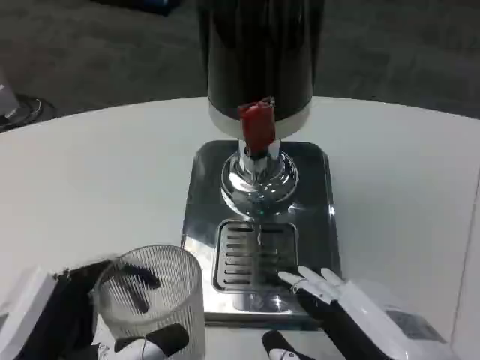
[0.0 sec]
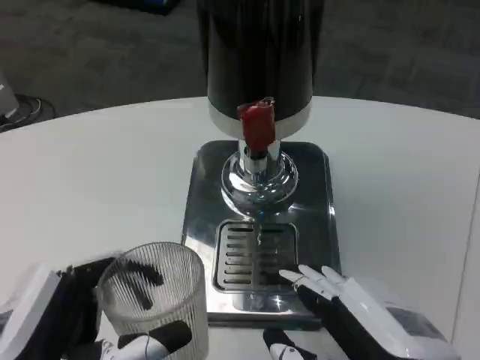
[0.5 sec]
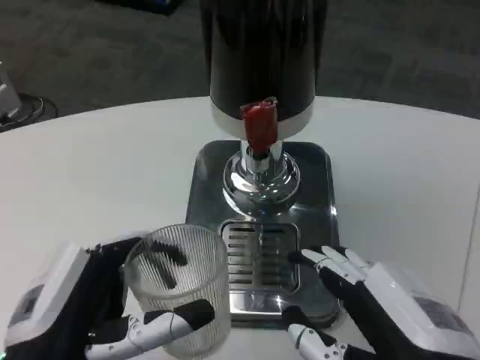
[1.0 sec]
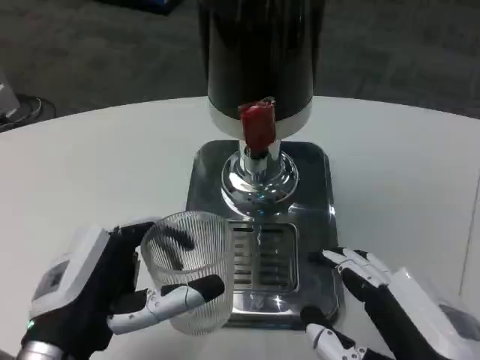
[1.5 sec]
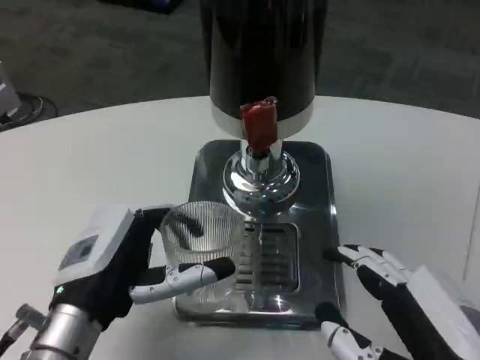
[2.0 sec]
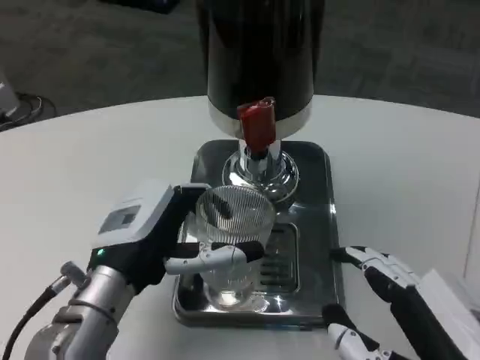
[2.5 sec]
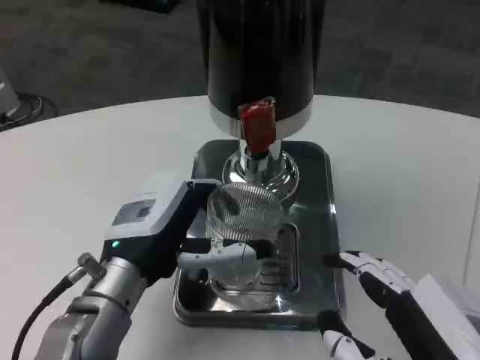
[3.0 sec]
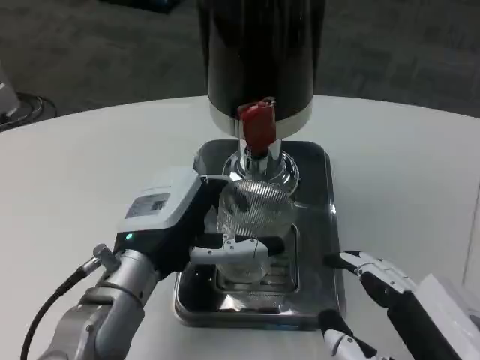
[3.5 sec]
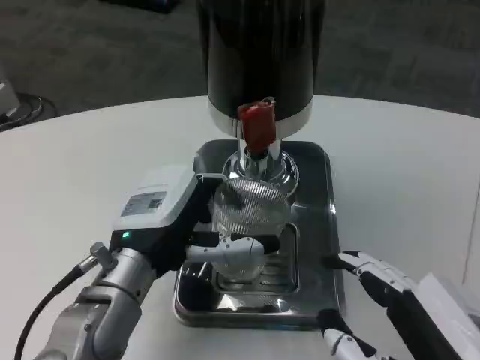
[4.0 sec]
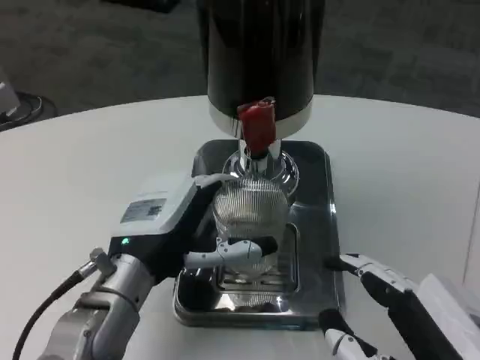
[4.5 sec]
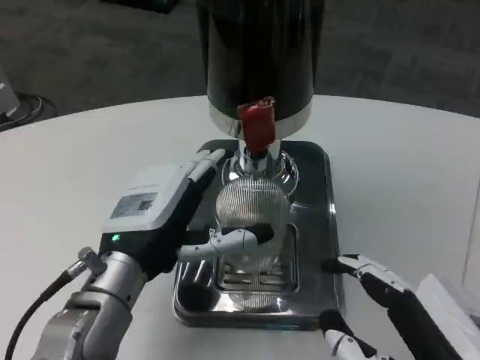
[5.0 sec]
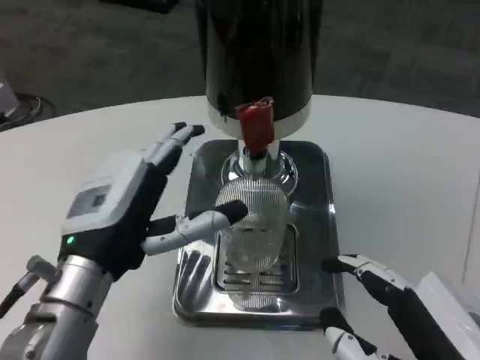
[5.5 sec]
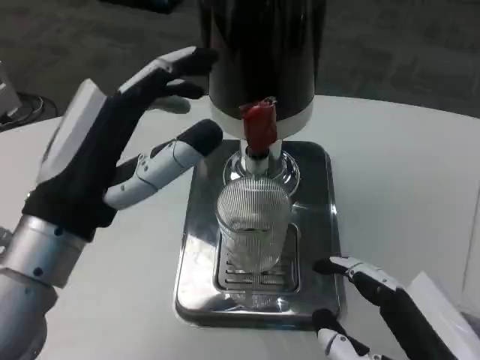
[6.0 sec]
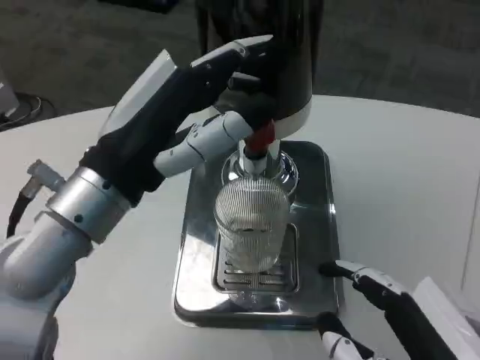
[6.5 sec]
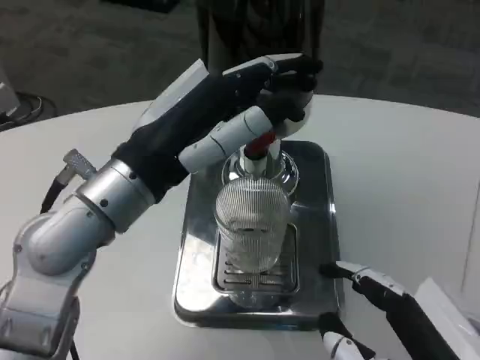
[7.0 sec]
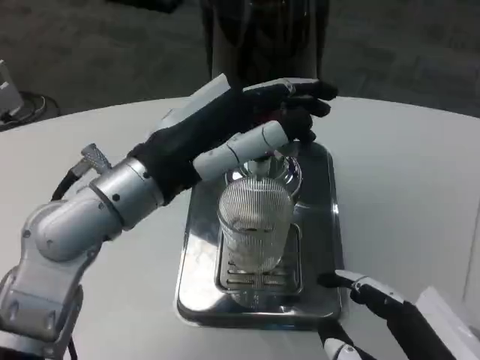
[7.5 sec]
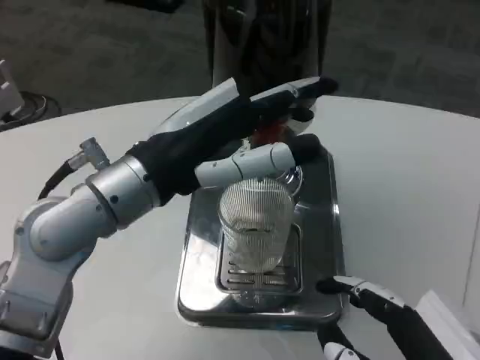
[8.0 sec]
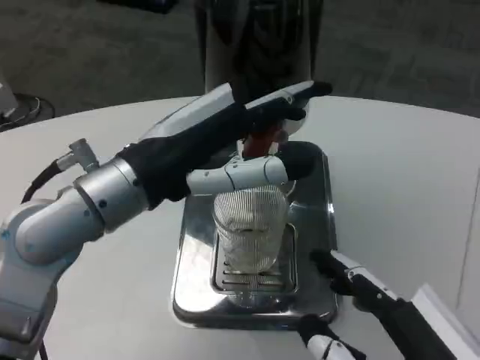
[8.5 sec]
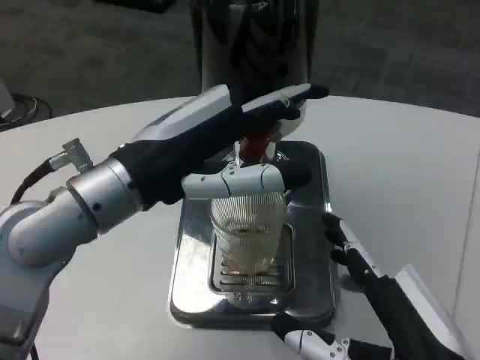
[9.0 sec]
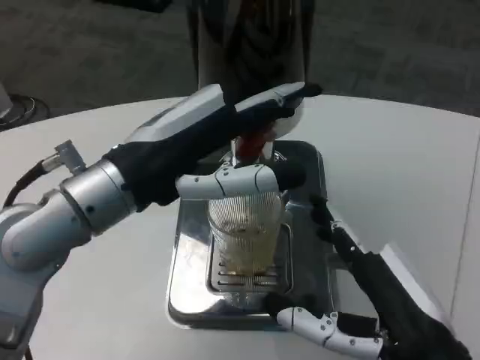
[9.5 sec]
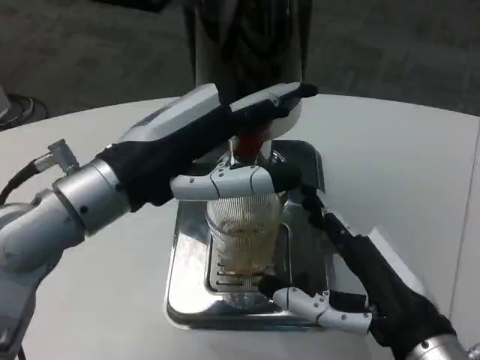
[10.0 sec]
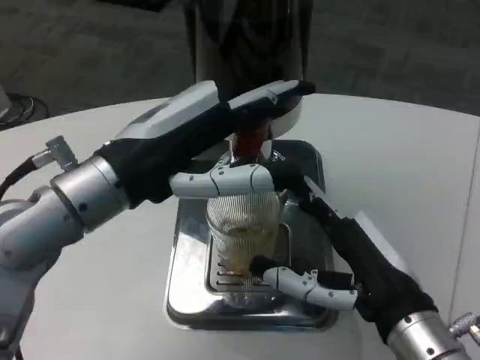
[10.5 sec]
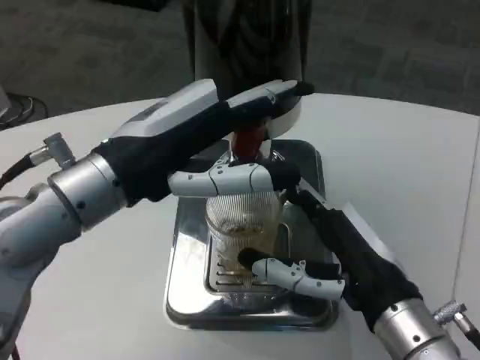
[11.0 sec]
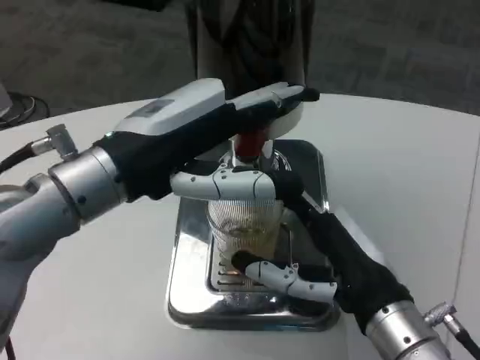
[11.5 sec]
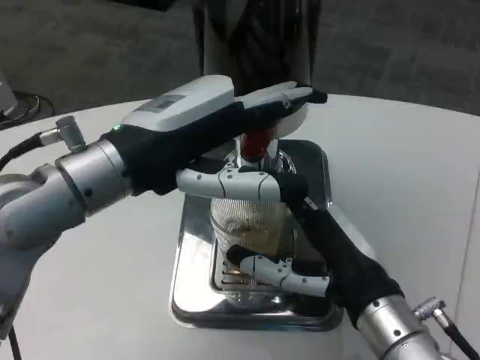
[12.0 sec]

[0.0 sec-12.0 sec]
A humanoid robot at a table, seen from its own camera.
Task of the whole recording: Grasp the cup under the faucet to collect the drink, then remove the cup.
0.0 sec to 2.0 sec: The left hand shifts about 10 cm forward.
2.0 sec to 4.0 sec: The left hand shifts by approximately 5 cm.
4.0 sec to 6.0 sec: The left hand moves upward and backward, about 10 cm.
6.0 sec to 8.0 sec: The left hand moves forward, roughly 5 cm.
8.0 sec to 10.0 sec: The right hand is displaced forward by some 10 cm.
10.0 sec to 12.0 sec: The right hand changes place by about 5 cm.

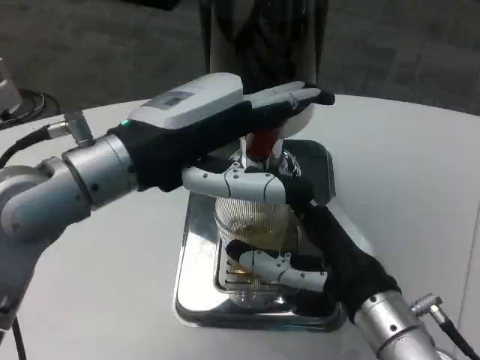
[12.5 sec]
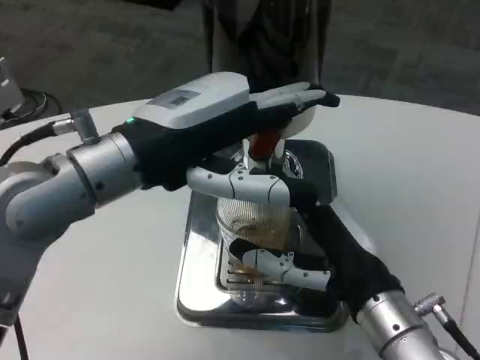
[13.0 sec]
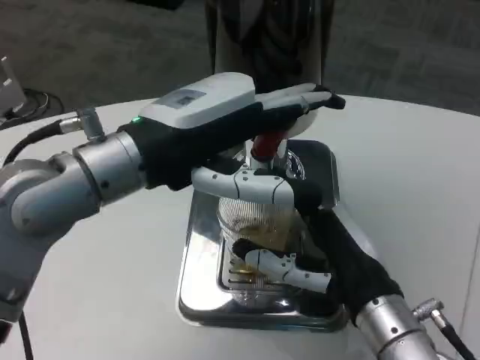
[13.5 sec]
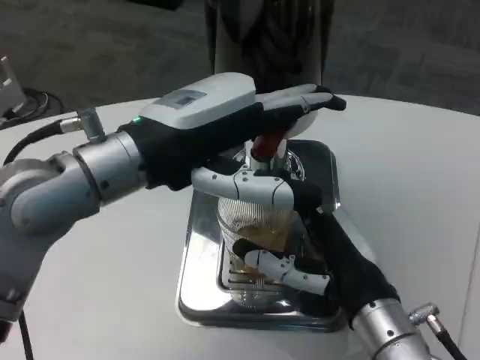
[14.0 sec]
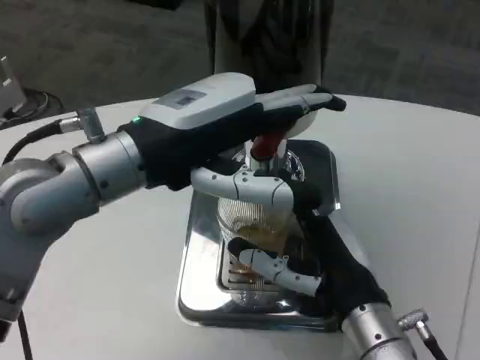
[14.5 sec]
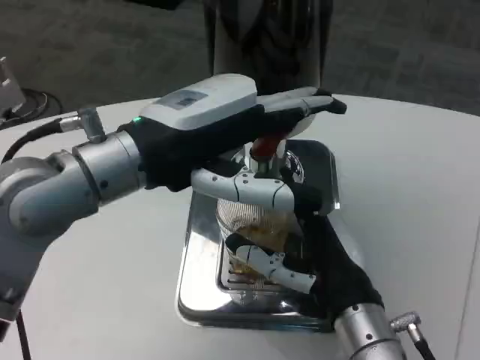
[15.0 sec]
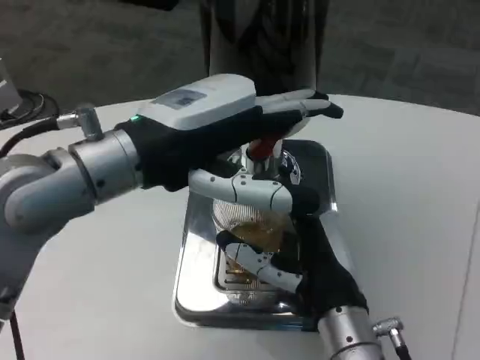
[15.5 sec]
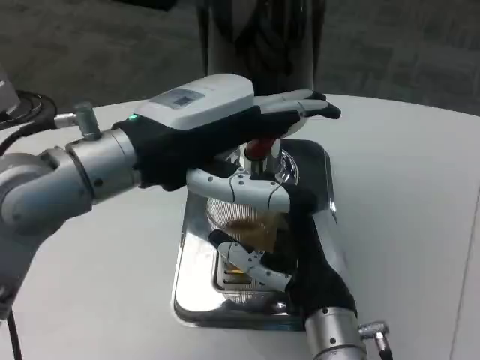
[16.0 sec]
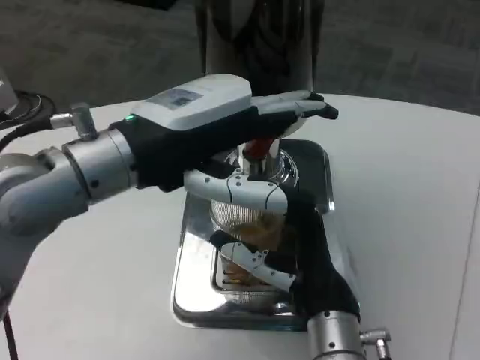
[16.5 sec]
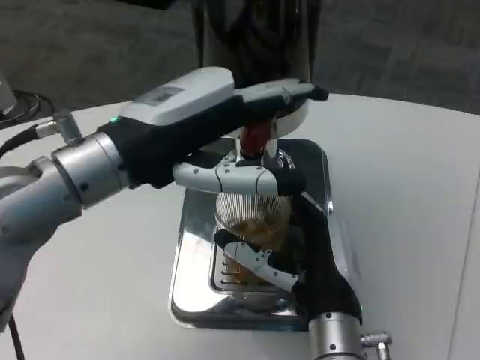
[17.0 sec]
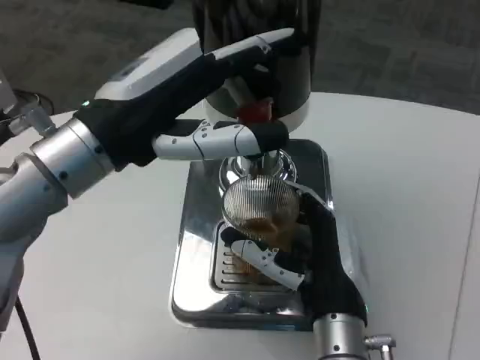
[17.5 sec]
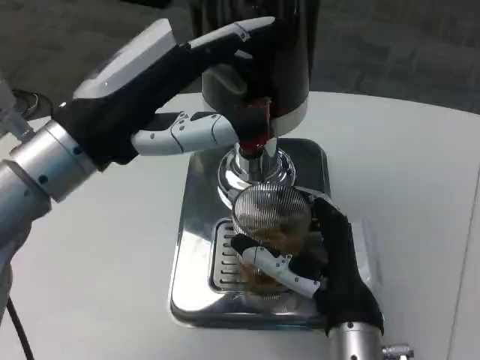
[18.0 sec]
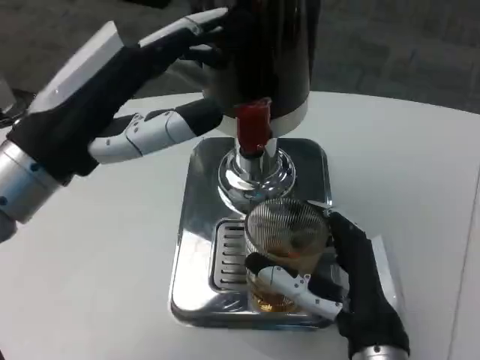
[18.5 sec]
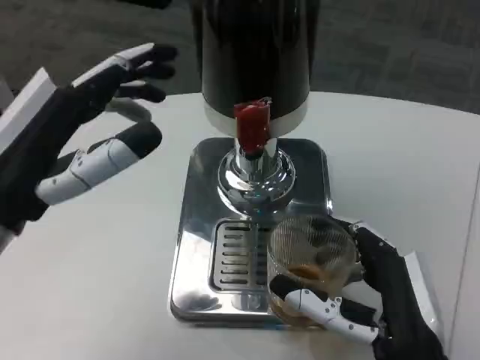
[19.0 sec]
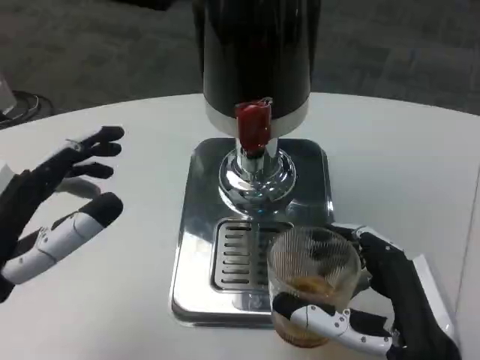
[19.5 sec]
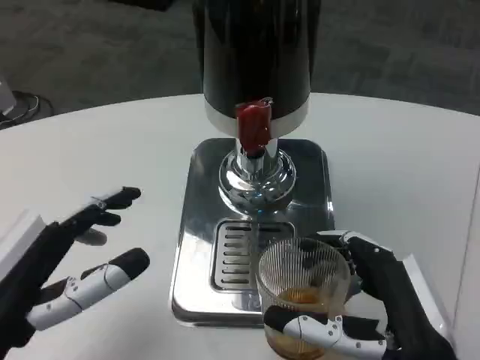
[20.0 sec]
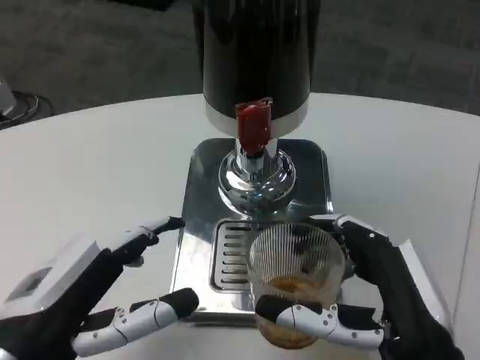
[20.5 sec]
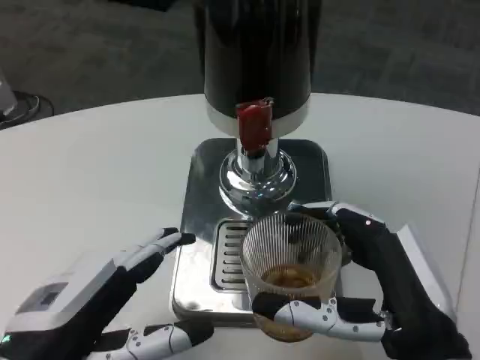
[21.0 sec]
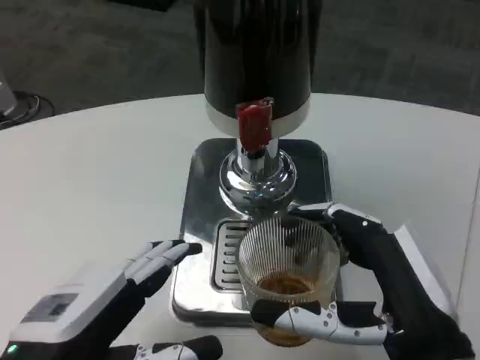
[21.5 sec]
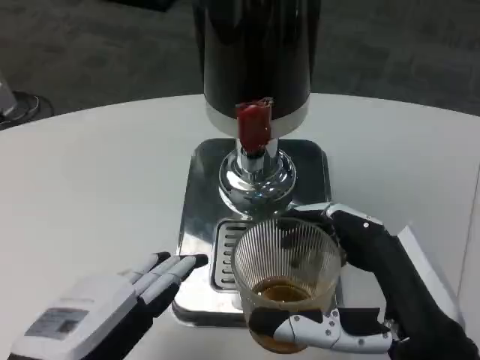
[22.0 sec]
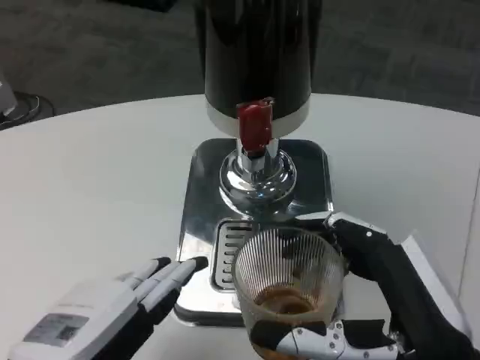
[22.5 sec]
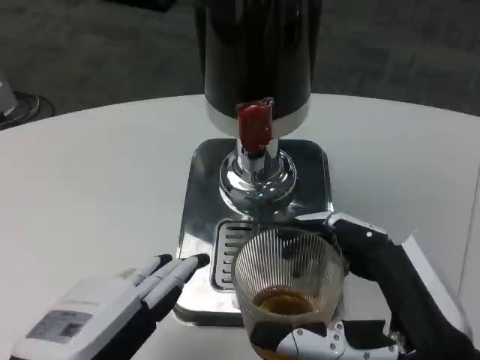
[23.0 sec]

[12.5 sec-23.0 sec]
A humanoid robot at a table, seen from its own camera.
Task of the whole recording: Grasp the cup under the faucet to collect the drink, then remove the cup.
12.5 sec to 14.5 sec: There are only small adjustments of the hands.
14.5 sec to 16.5 sec: The right hand shifts by about 5 cm.
16.5 sec to 19.0 sec: The left hand heads to the left, downward and backward, covering approximately 10 cm. Meanwhile the right hand goes about 10 cm backward and to the right.
19.0 sec to 21.0 sec: The left hand is displaced downward and backward by some 10 cm.
21.0 sec to 23.0 sec: There are only small adjustments of the hands.

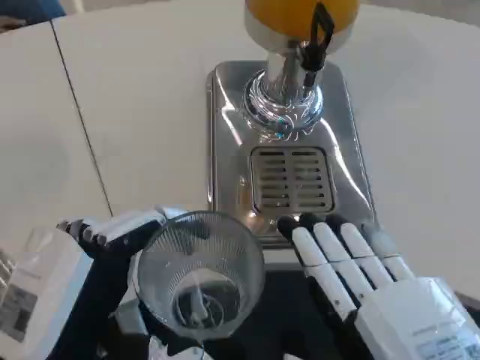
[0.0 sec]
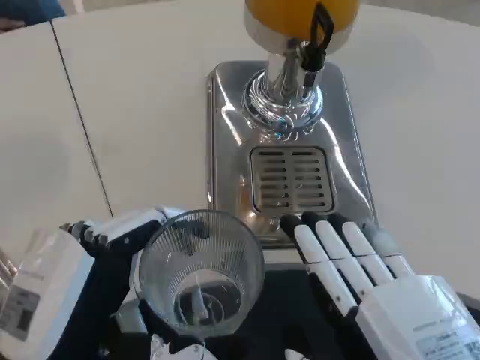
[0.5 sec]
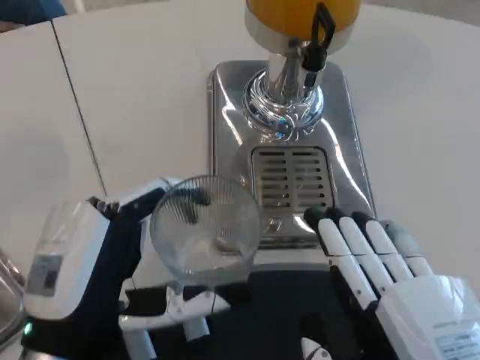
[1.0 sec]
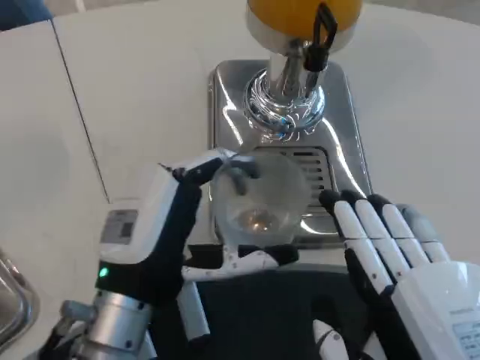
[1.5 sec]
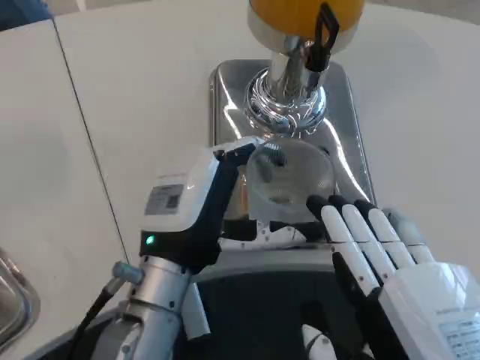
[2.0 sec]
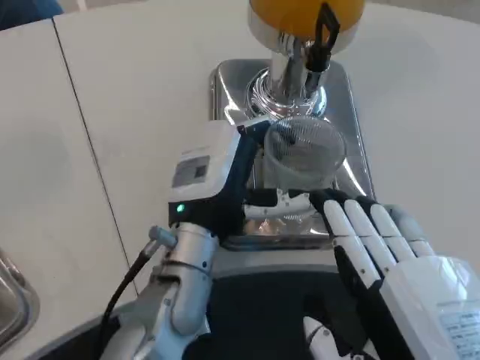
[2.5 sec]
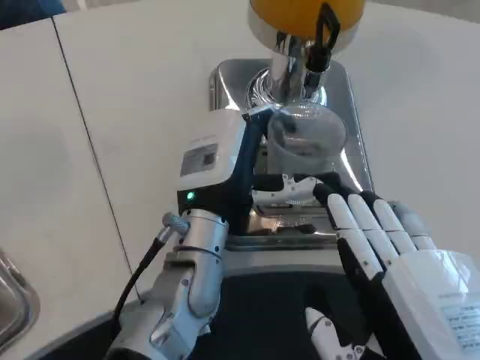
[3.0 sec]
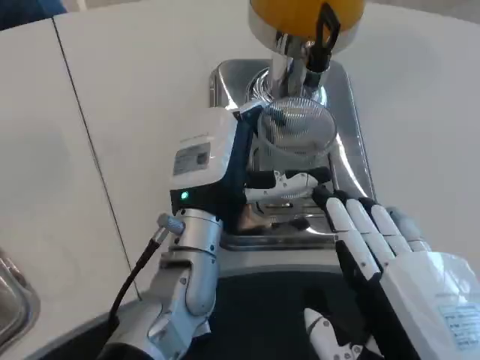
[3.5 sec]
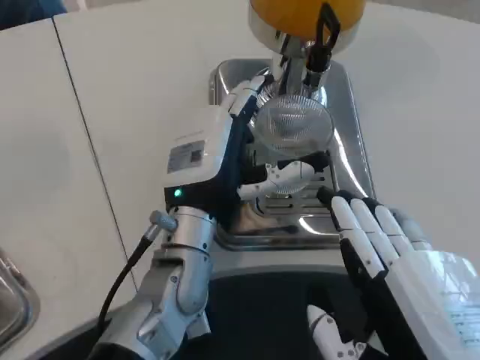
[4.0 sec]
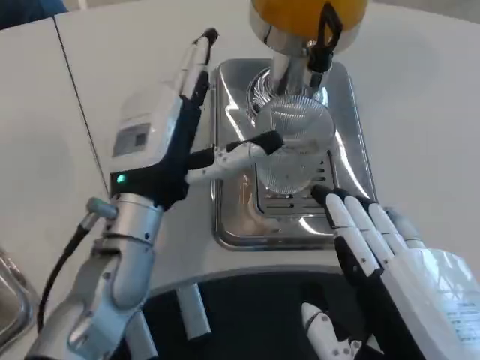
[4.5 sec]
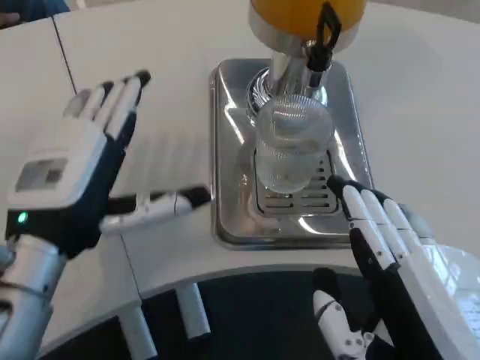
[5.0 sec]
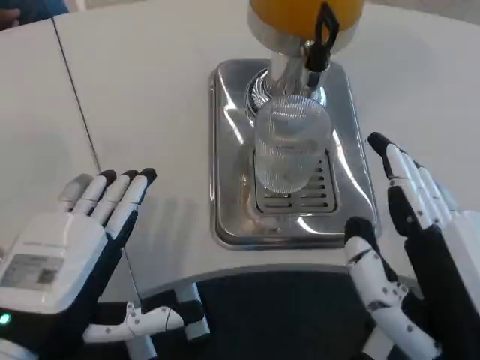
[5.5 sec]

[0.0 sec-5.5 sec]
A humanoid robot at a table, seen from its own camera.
Task of the whole recording: Grasp the cup under the faucet to collect the drink, then remove the cup.
0.0 sec to 2.0 sec: The left hand travels forward and to the right by roughly 15 cm.
2.0 sec to 3.5 sec: The left hand moves forward, approximately 5 cm.
3.5 sec to 5.5 sec: The left hand is displaced backward and to the left by some 20 cm.
